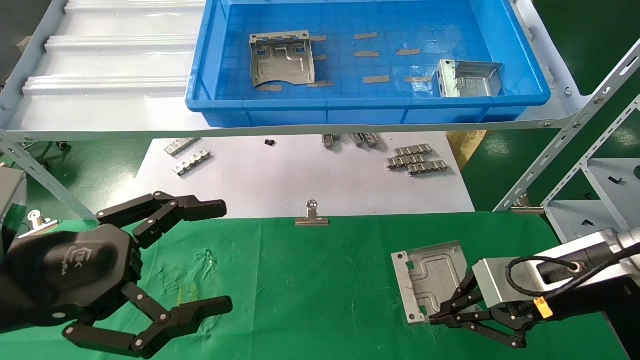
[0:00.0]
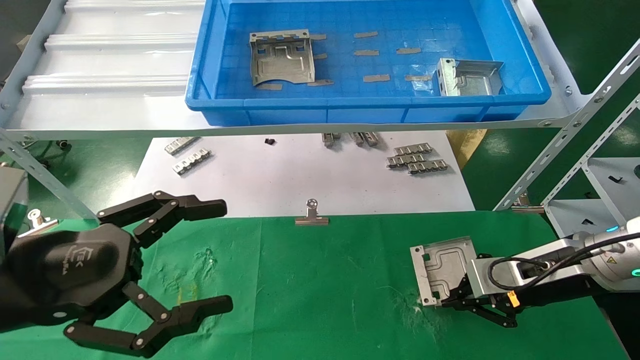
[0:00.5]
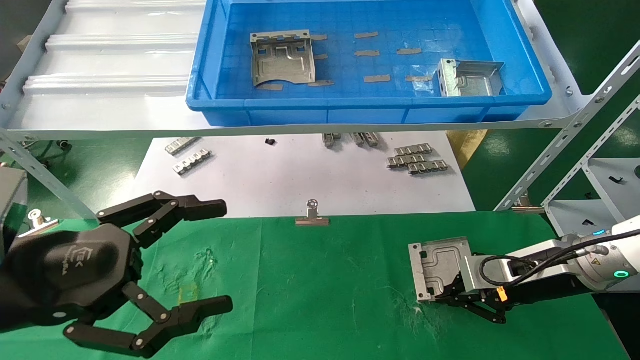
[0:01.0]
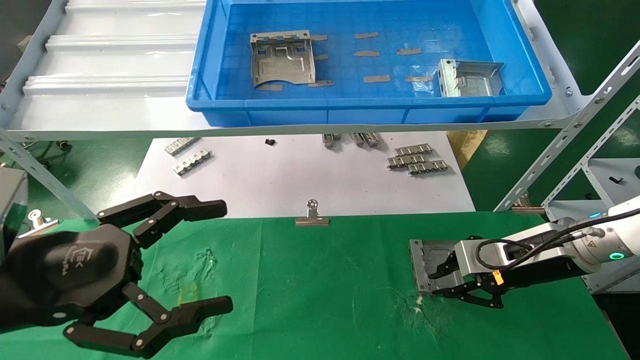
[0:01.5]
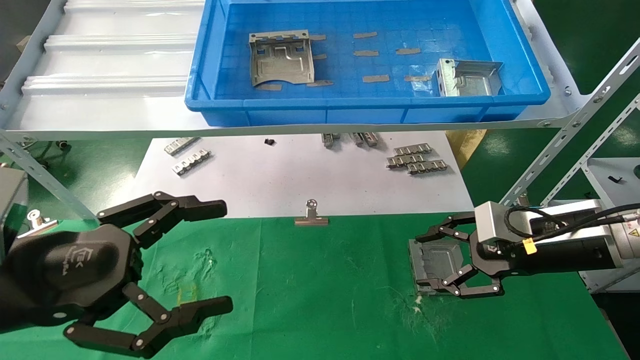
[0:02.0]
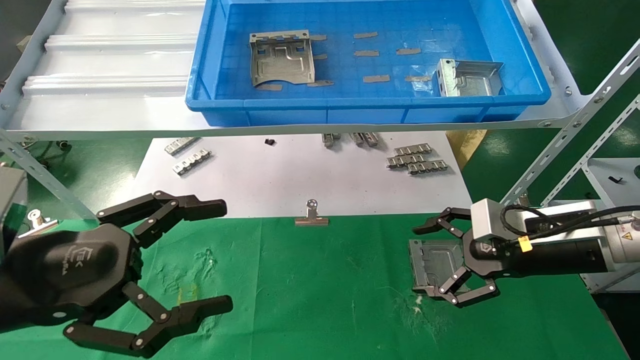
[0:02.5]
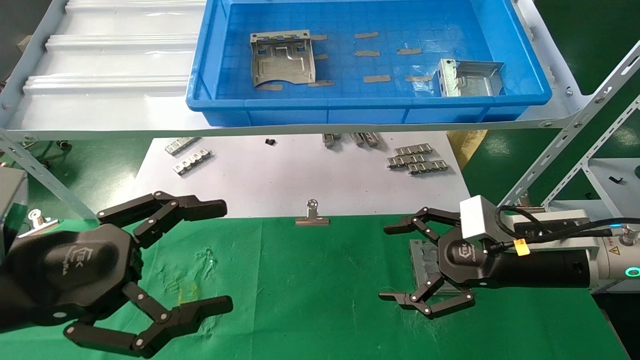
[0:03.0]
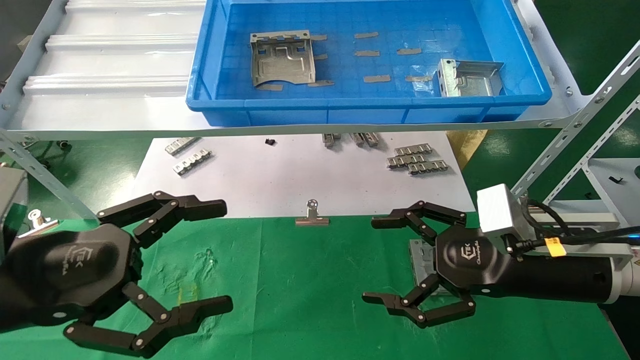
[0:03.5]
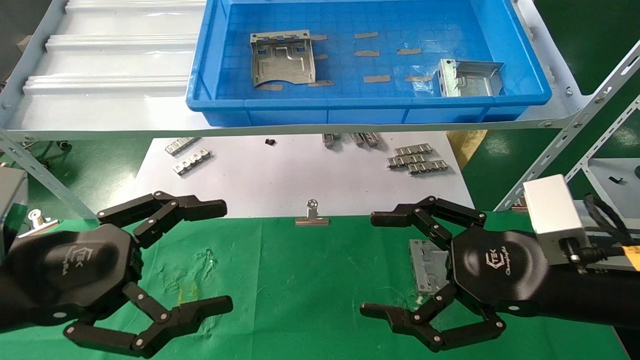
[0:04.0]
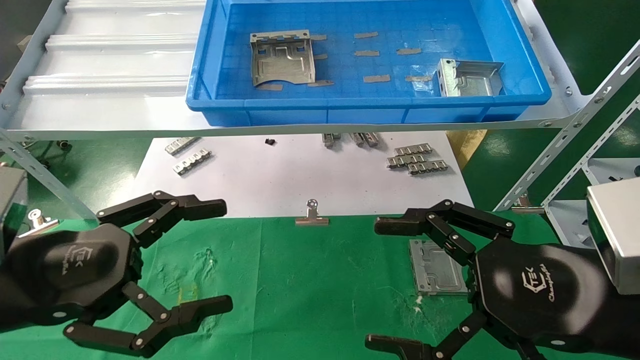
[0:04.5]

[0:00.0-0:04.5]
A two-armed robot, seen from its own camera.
Task of the whole recording: use the mechanical arm to pick up the parts and place them on the table.
Step, 0:00.0 to 0:02.0: Place the hard drive bracket into the box.
0:00.0 to 0:02.0: The right gripper opens up.
0:02.0 to 0:04.5: The right gripper shifts approximately 15 cm backward and to the left, and opens its fingers.
